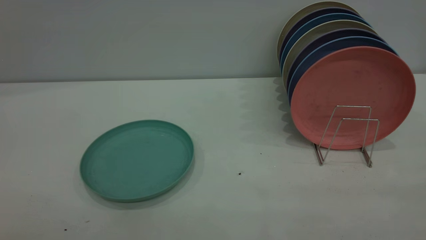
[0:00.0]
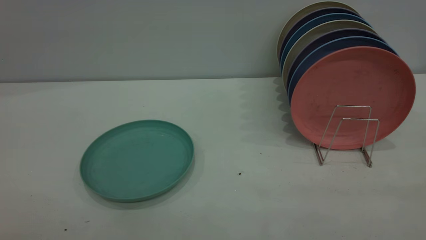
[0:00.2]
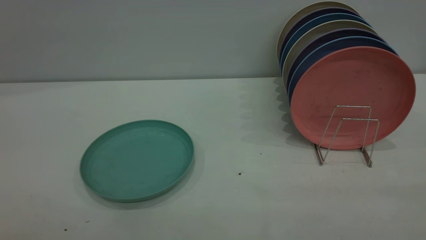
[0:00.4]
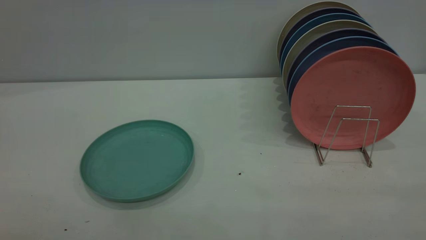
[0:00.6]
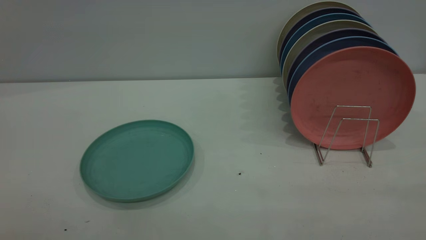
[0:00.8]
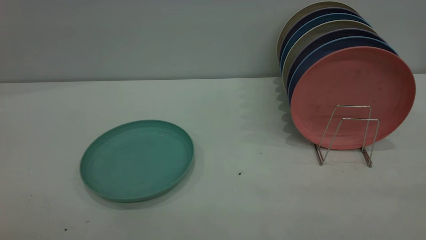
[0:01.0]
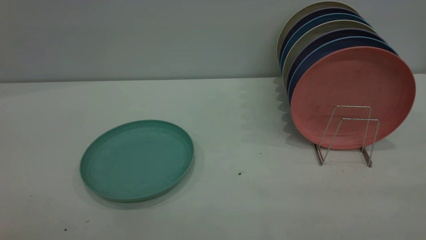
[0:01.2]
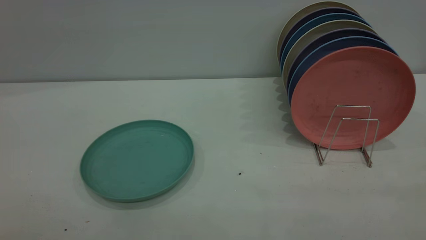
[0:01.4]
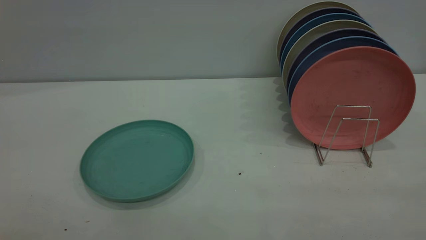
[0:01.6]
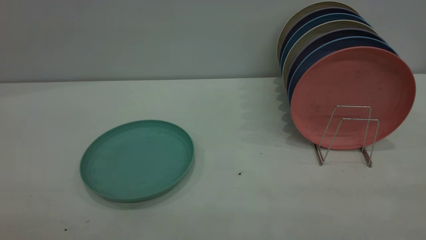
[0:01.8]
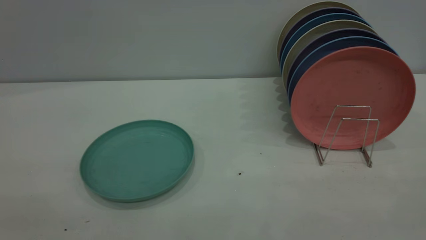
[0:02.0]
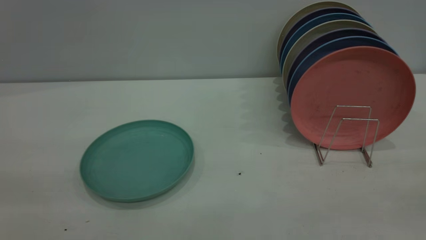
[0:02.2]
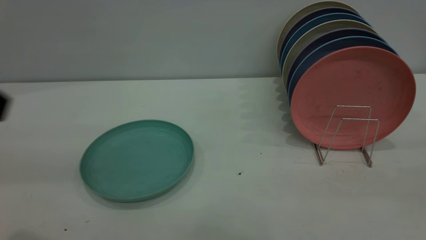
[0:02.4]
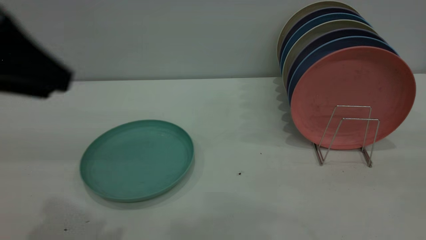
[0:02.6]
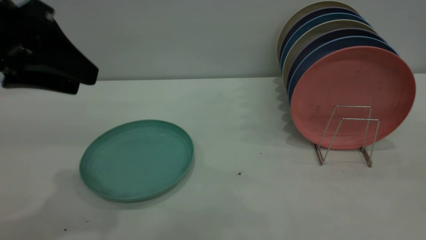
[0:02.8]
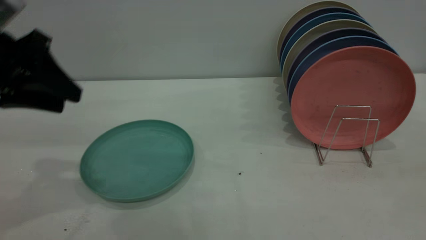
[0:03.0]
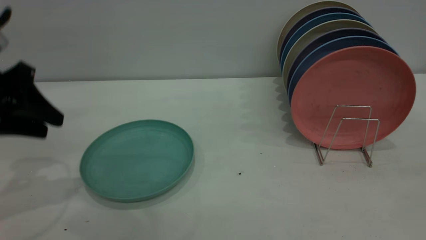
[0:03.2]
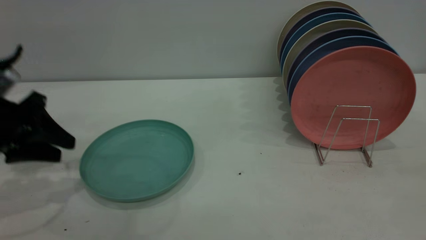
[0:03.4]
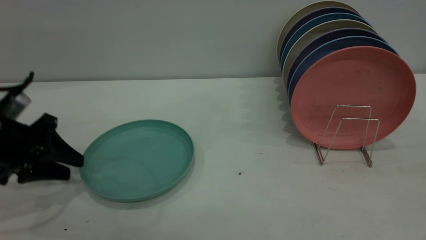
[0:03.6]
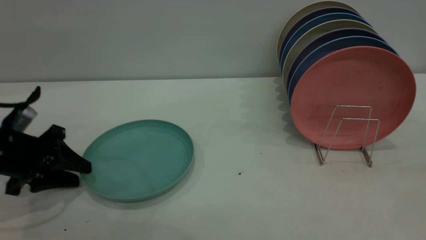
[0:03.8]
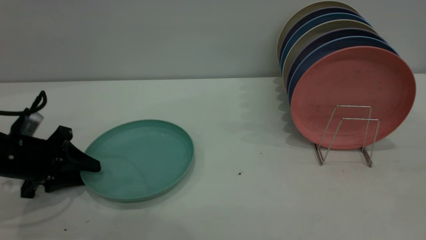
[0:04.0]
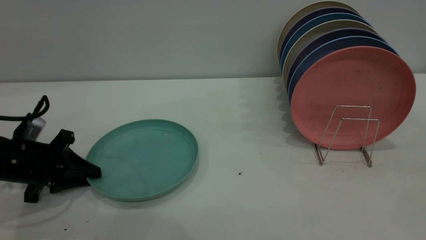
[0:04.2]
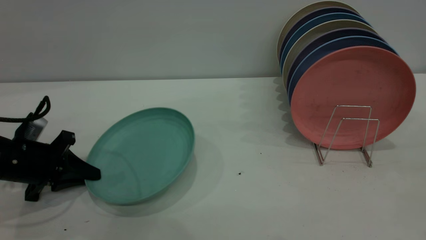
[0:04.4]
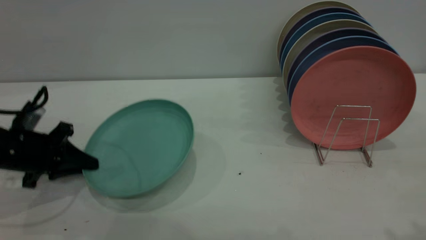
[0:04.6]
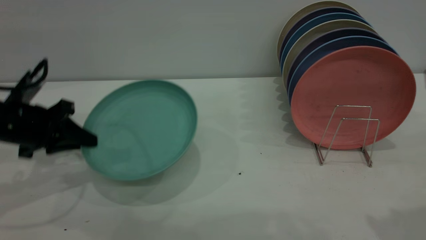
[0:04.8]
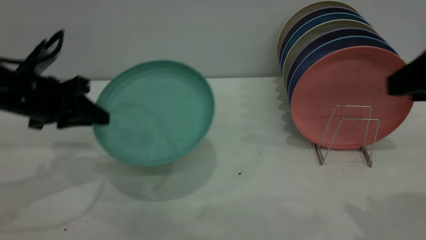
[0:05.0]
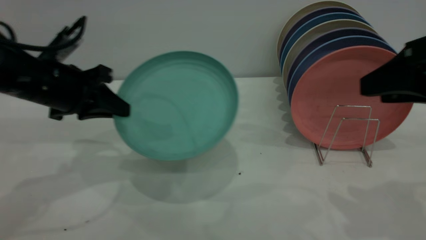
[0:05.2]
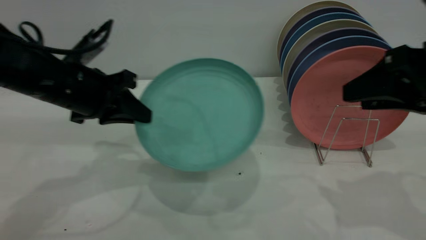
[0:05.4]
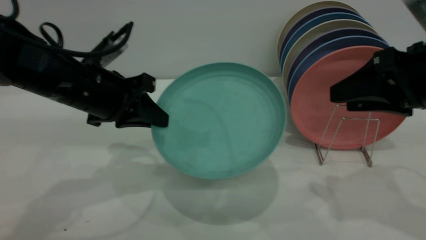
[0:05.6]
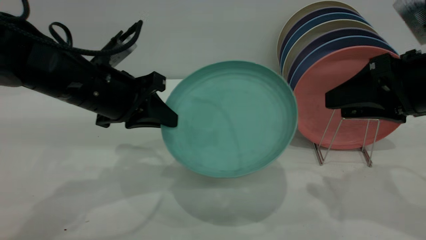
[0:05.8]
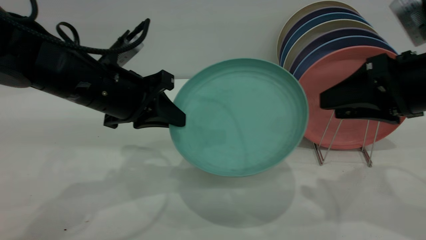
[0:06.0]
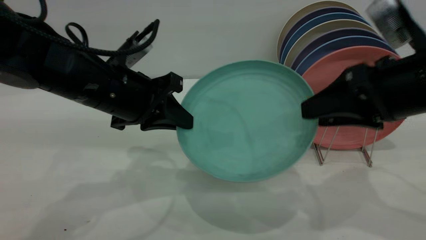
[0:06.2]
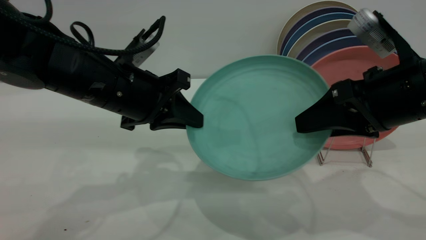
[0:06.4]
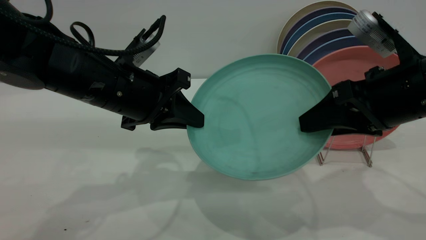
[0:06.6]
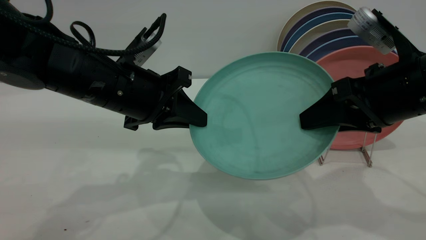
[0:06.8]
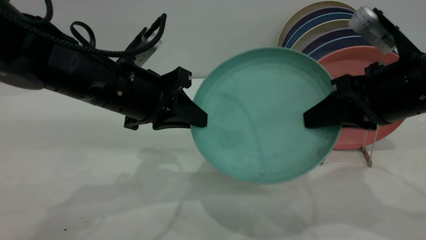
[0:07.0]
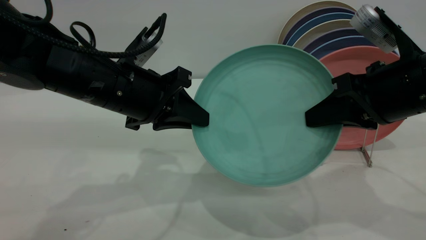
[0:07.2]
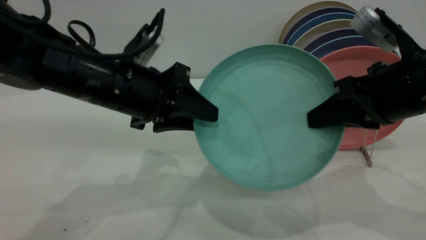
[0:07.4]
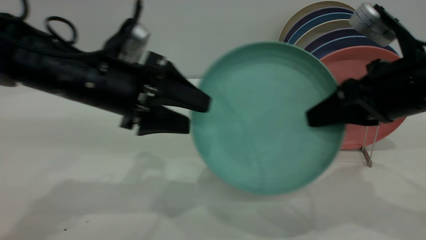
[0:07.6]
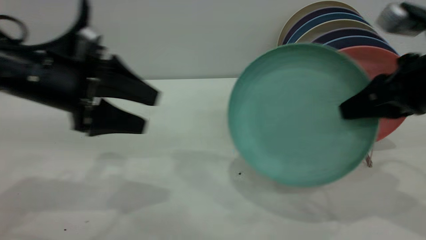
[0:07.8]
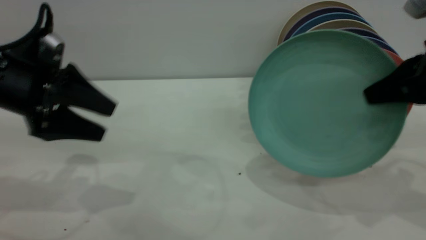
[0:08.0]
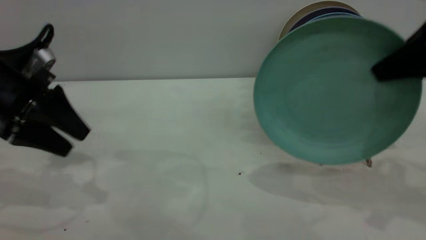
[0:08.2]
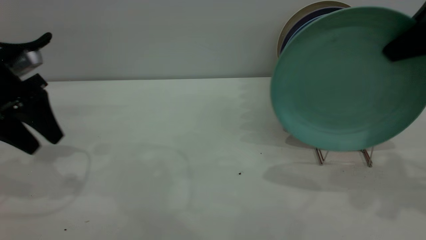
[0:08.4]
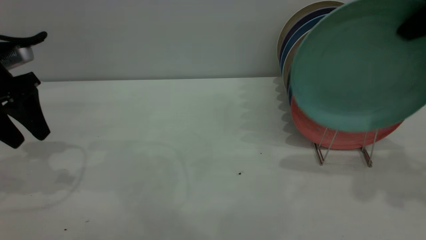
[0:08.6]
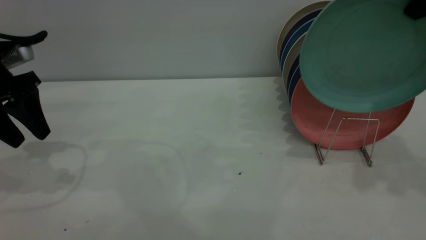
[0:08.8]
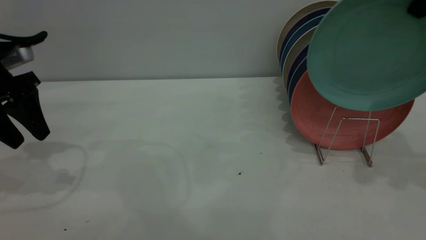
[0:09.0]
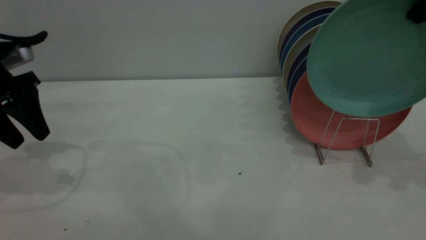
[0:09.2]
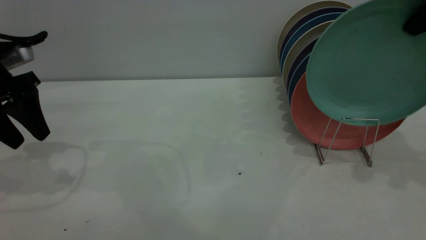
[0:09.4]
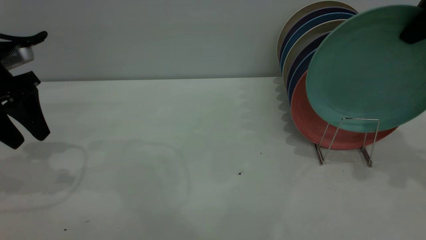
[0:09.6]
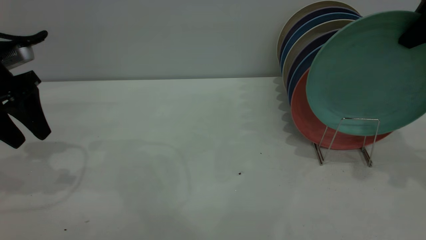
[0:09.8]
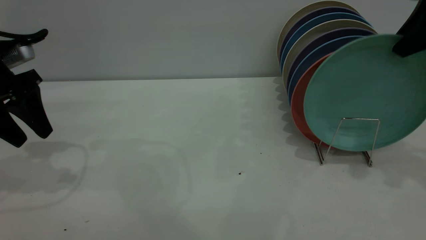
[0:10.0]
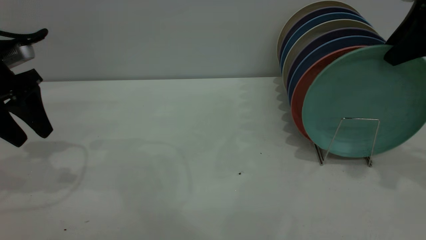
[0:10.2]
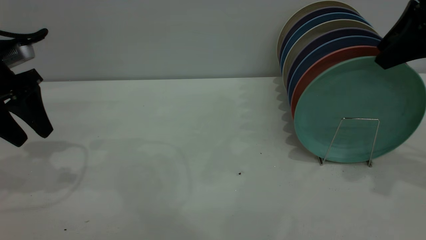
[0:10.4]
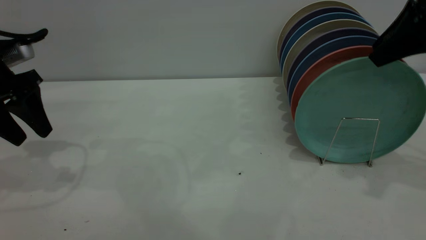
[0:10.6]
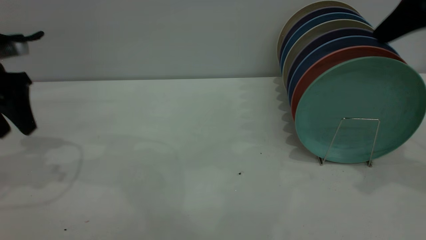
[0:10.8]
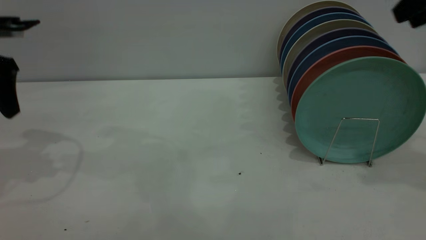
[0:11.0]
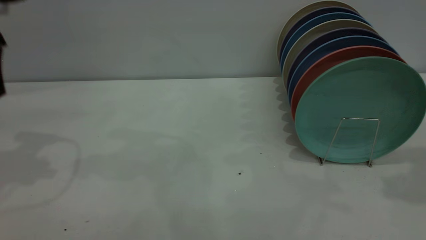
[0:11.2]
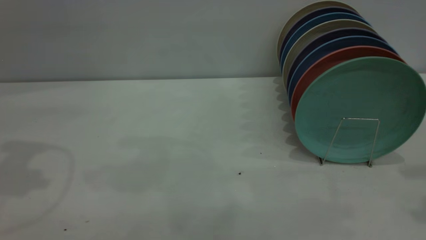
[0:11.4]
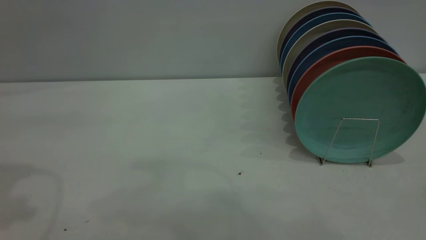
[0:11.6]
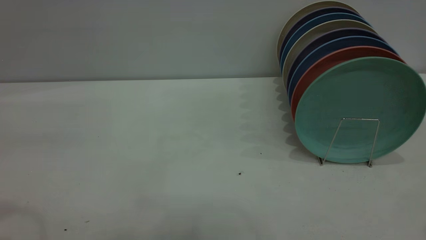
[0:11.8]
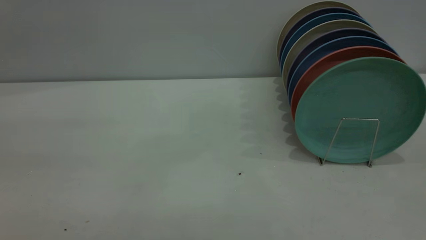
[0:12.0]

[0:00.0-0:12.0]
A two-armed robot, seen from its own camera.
Task of the whole recording: the left gripper grasp the green plate, the left gripper pass the green plate to the right gripper, and the right gripper place the green plate on the plate rack.
Step, 0:00.0 to 0:04.8: Pick up the plate with the left gripper.
Step, 0:05.0 to 0:07.8: Pass the plate from the left gripper to the right gripper.
Step, 0:08.0 to 0:10.8: Place the plate on the shelf.
0:00.0 to 0:01.6: Both grippers stay about where they are.
0:01.6 to 0:03.0: The left gripper heads forward, covering about 30 cm.
0:03.0 to 0:04.4: The left gripper moves downward, about 20 cm, and closes.
0:04.4 to 0:06.0: The left gripper goes roughly 20 cm to the right and upward, while the right gripper moves forward and downward, roughly 20 cm.
0:06.0 to 0:07.6: The right gripper closes up. Meanwhile the left gripper opens.
0:07.6 to 0:09.0: The right gripper is displaced upward, to the right and forward by some 15 cm. The left gripper moves to the left, approximately 15 cm.
0:09.0 to 0:10.4: The right gripper shifts about 5 cm downward, and opens up.
0:10.4 to 0:12.0: Both grippers travel together backward and upward, about 30 cm.

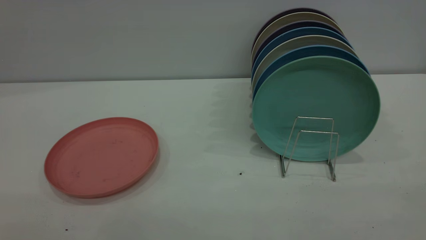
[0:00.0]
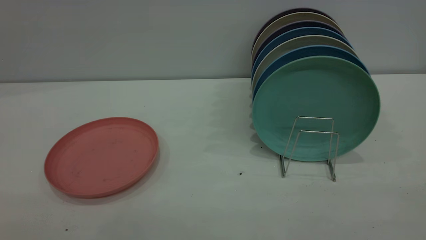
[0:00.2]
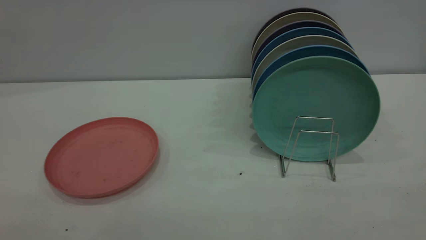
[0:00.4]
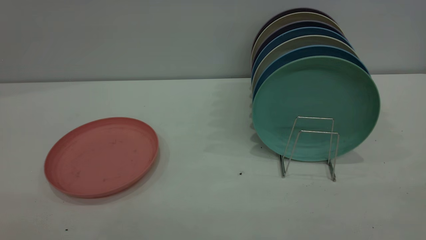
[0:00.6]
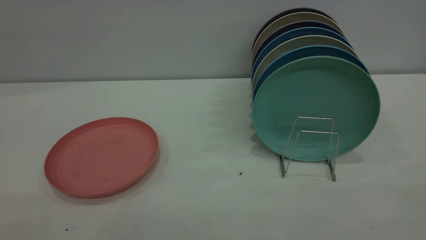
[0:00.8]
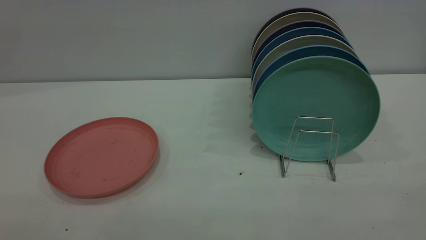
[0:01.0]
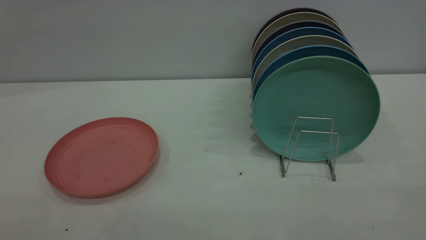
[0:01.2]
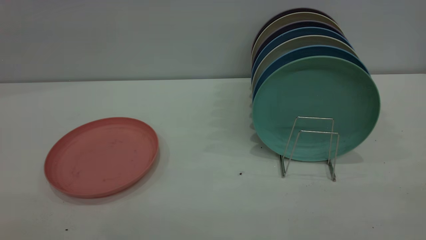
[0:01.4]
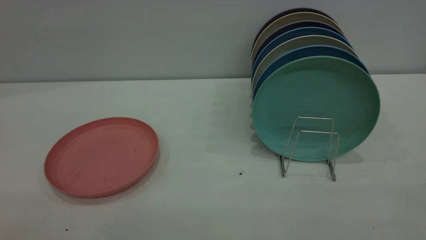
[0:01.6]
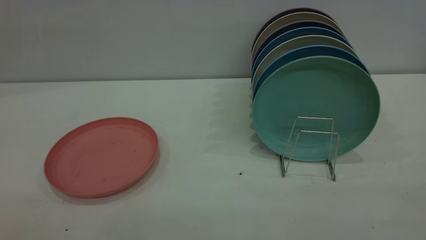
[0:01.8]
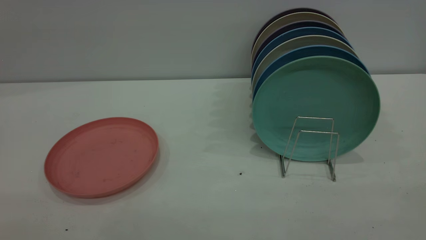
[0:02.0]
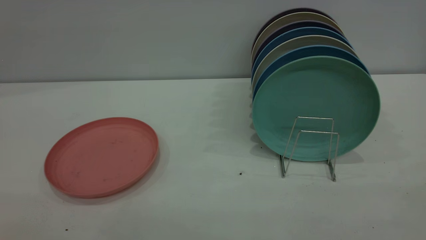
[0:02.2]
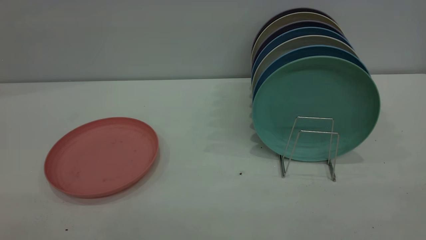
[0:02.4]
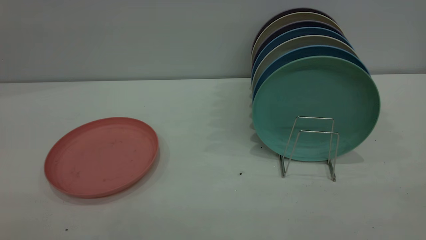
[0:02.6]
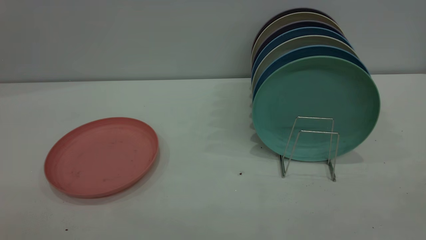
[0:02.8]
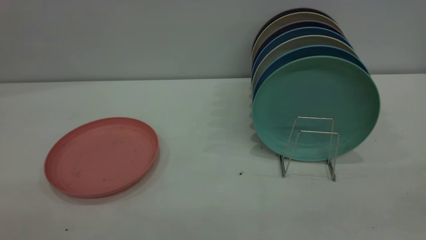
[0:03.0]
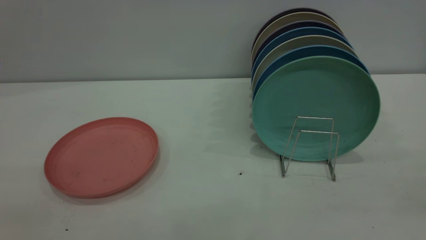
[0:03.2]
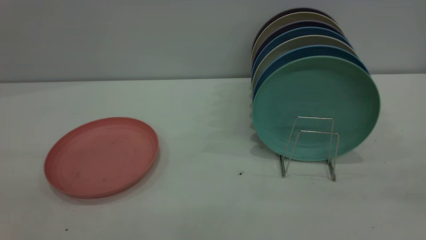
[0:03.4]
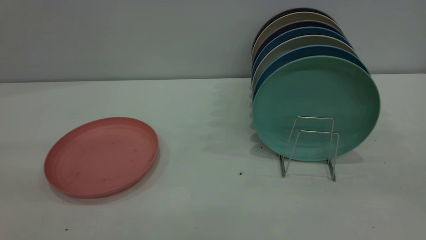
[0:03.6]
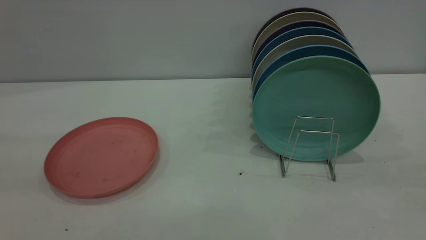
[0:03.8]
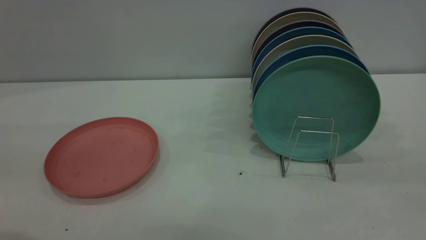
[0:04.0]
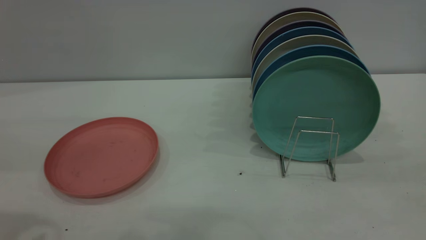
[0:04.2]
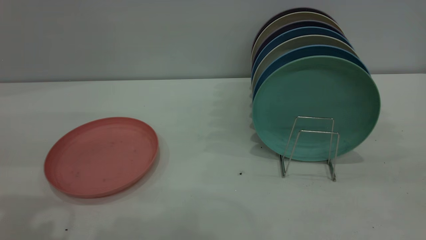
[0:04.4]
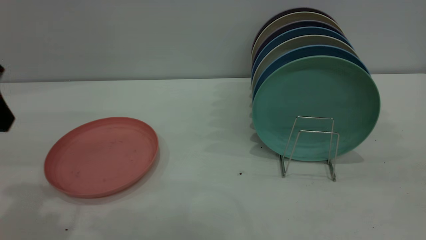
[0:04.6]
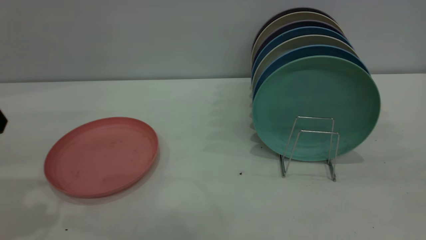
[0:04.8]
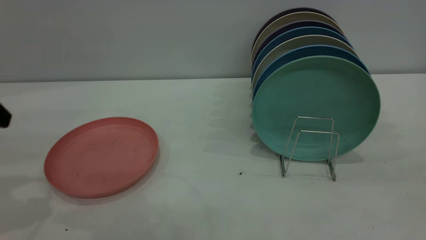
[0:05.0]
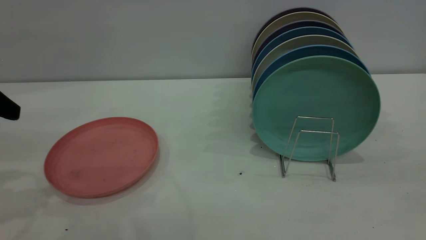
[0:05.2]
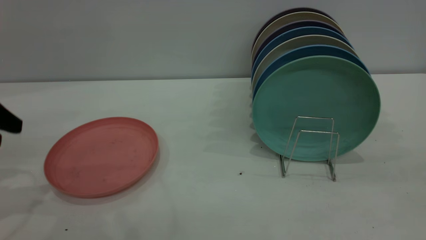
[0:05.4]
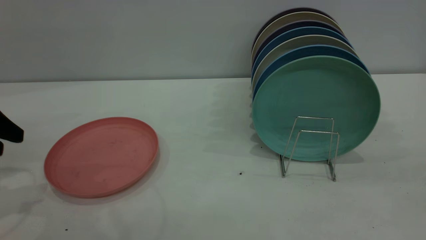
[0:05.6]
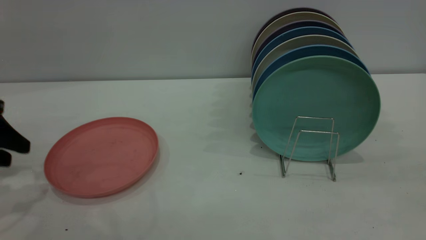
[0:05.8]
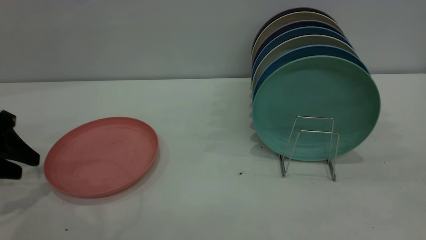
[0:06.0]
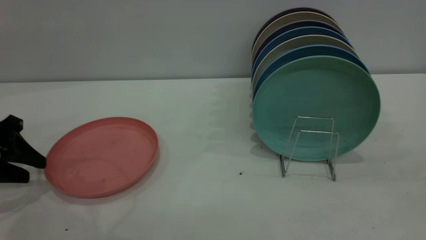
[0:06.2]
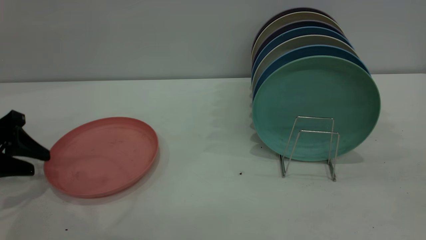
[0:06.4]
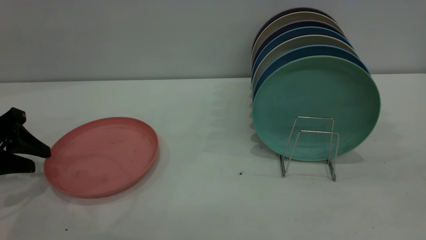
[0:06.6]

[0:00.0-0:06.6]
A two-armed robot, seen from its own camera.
Task of the whole recording: put the plate on the plate rack.
0:00.0 to 0:01.6: Both grippers stay put.
0:05.0 to 0:06.6: The left gripper goes roughly 15 cm downward.
